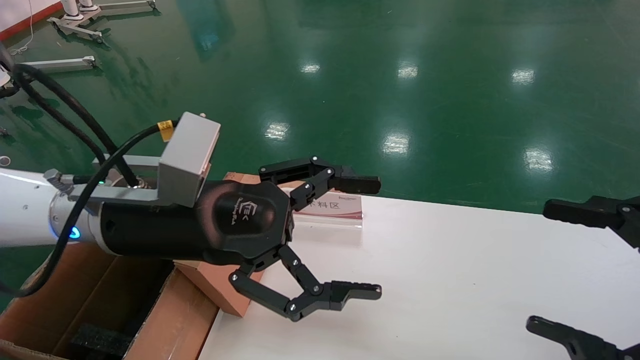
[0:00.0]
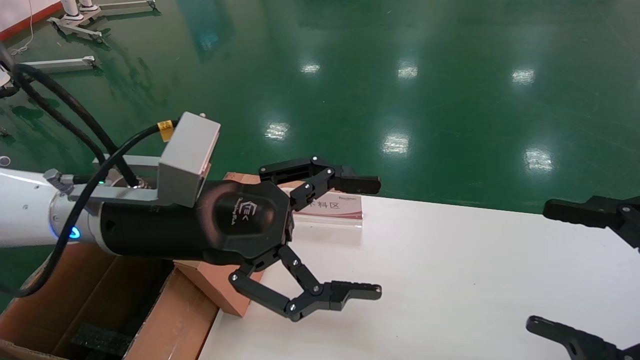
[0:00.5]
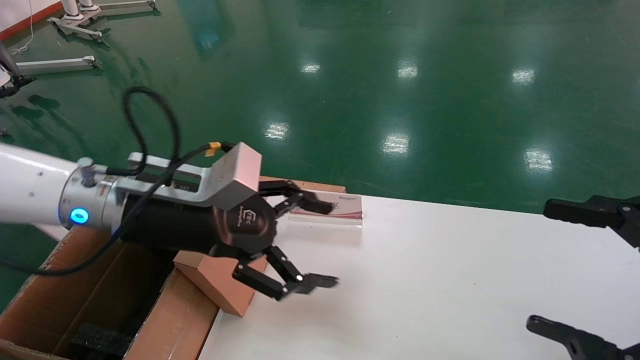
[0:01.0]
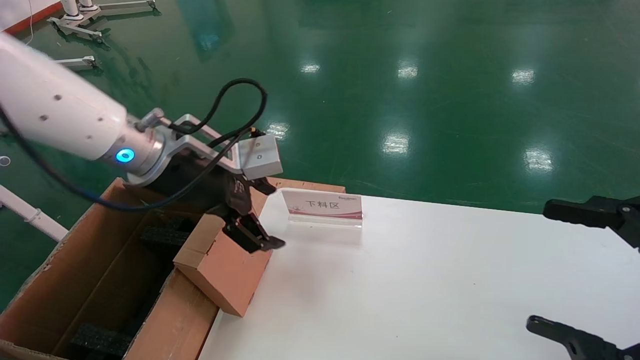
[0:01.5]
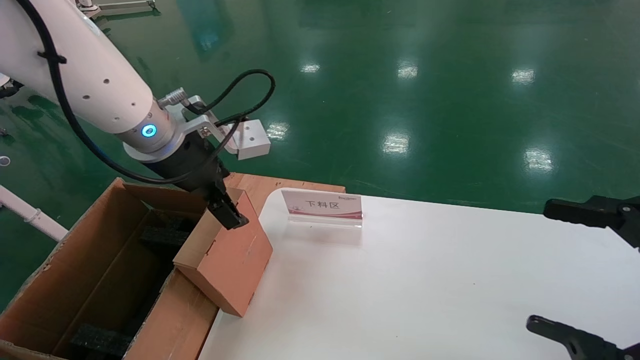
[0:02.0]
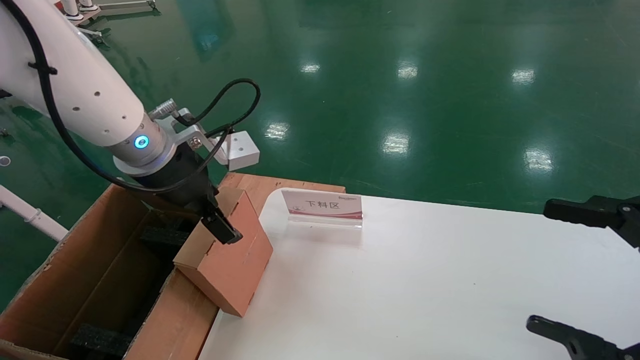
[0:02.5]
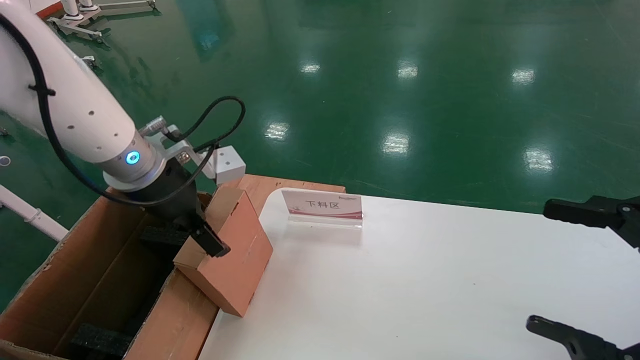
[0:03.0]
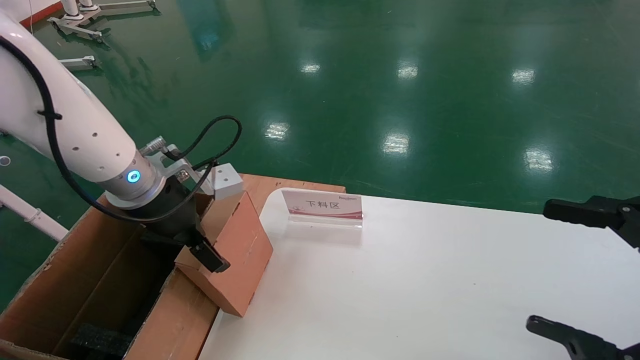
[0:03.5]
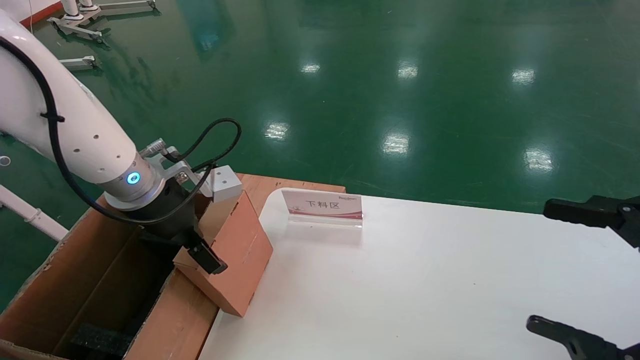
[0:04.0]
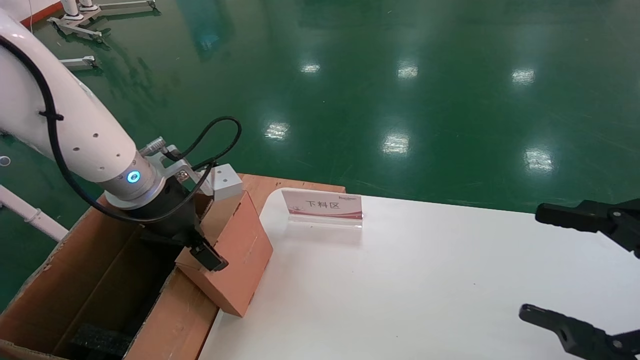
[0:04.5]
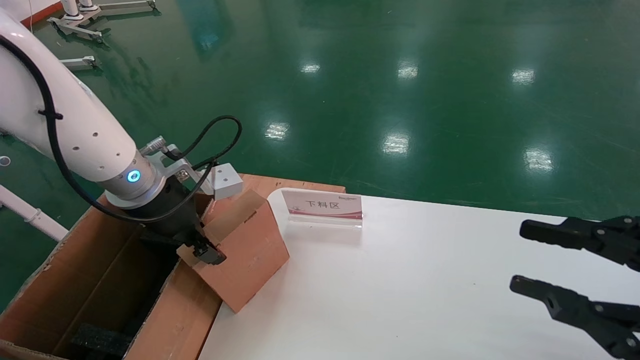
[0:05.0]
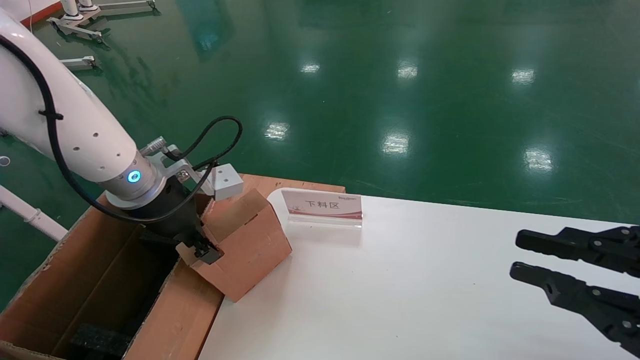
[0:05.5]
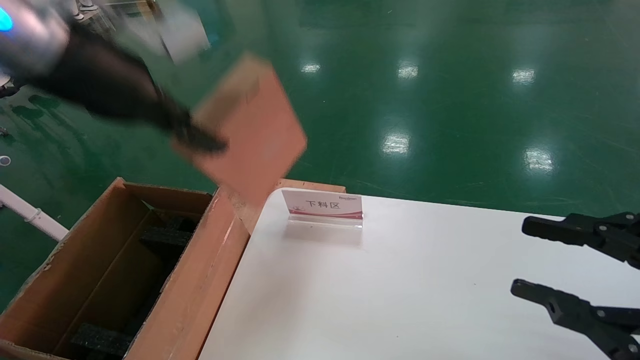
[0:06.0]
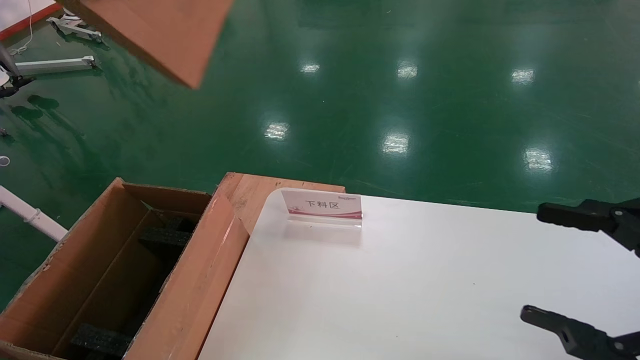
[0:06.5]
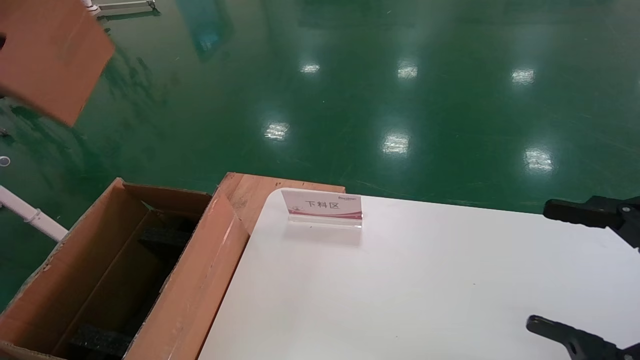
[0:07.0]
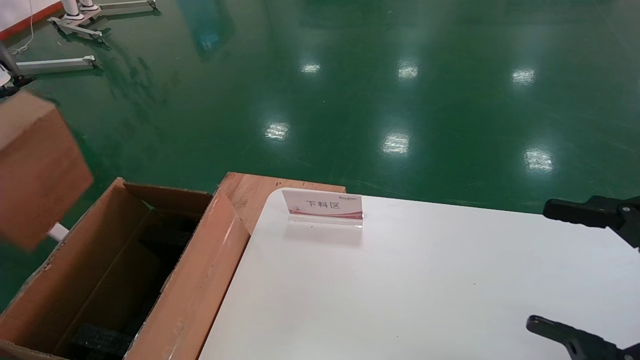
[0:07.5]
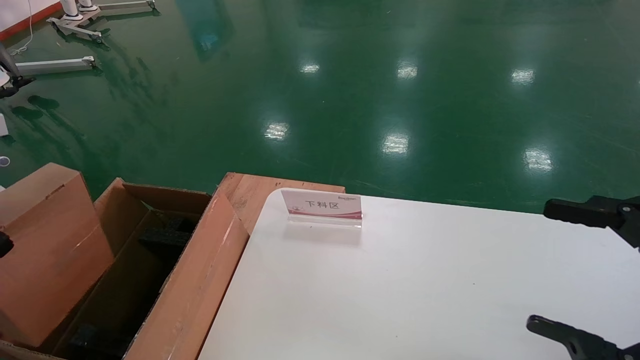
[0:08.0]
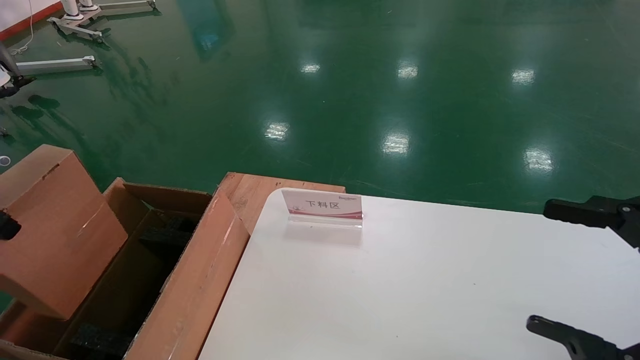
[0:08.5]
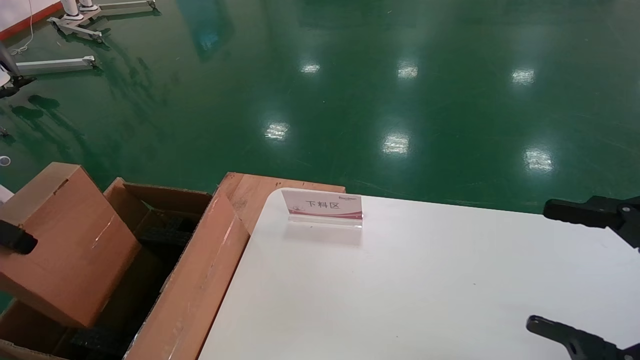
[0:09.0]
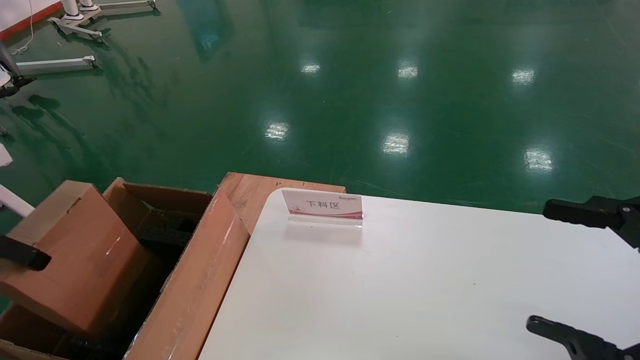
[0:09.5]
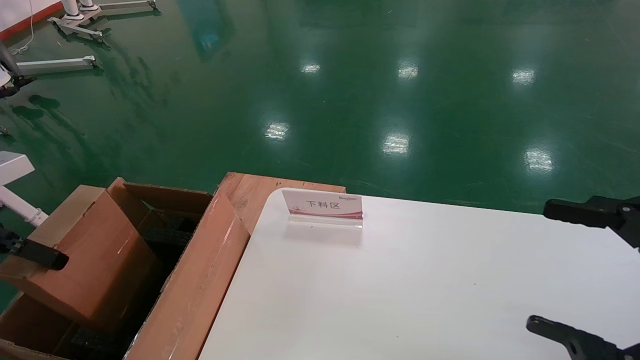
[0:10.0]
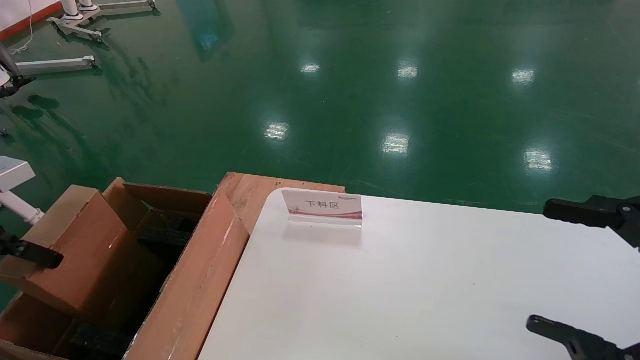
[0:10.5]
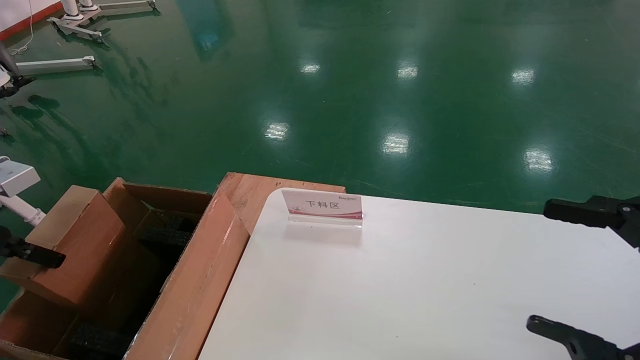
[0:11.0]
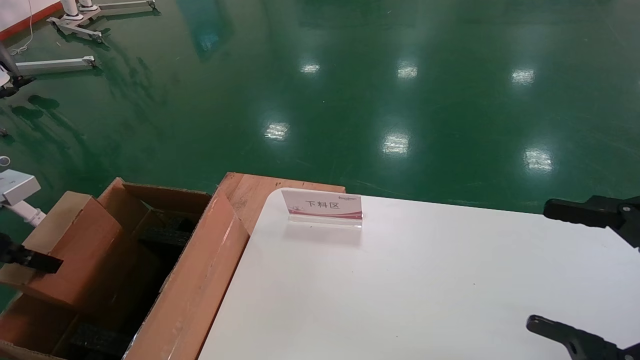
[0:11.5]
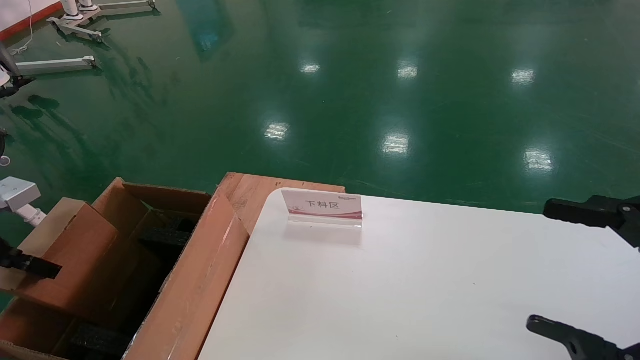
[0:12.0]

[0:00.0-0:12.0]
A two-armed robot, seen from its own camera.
Task of the whole recording: pick up the small cardboard box and load it into the large cardboard box.
Step, 0:01.0 to 0:05.0: Pick up the mouse and power cord box.
0:00.0 to 0:02.0: The left gripper travels forward by roughly 10 cm.
0:02.0 to 0:04.0: The left gripper travels downward by roughly 5 cm.
0:04.0 to 0:06.0: The right gripper closes up. Meanwhile the left gripper heads upward and backward, covering some 20 cm, and closes up.
0:06.0 to 0:08.0: The left gripper goes approximately 20 cm to the left and backward. The right gripper opens up.
0:08.0 to 0:10.0: The left gripper heads downward and to the left, covering some 10 cm.
0:10.0 to 0:12.0: The left gripper travels downward by roughly 5 cm.

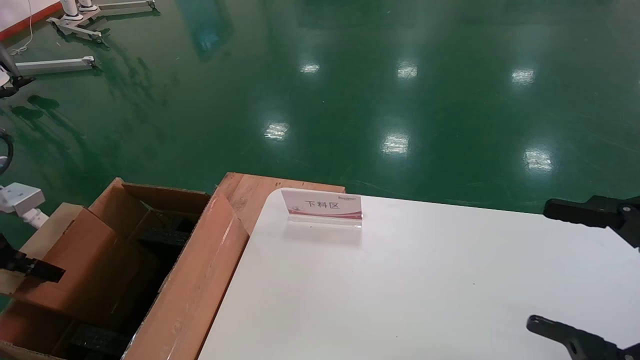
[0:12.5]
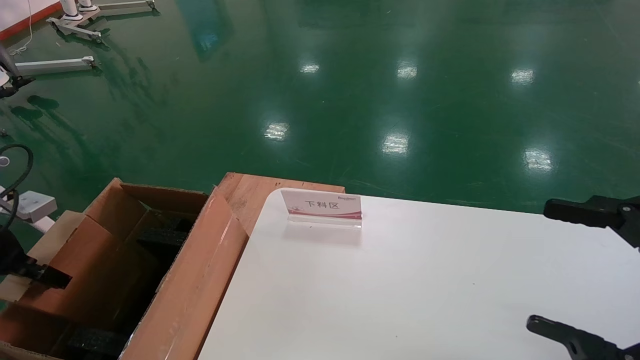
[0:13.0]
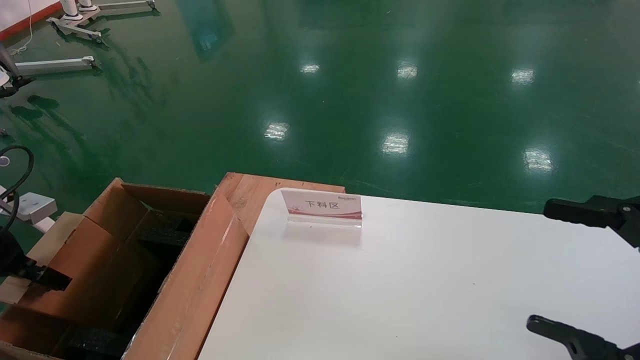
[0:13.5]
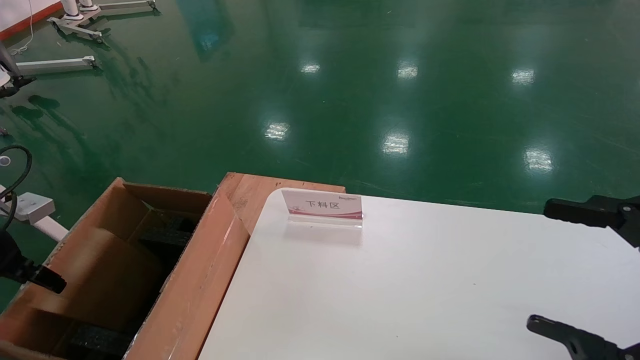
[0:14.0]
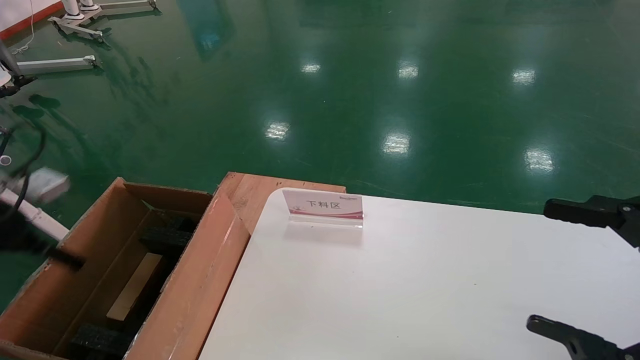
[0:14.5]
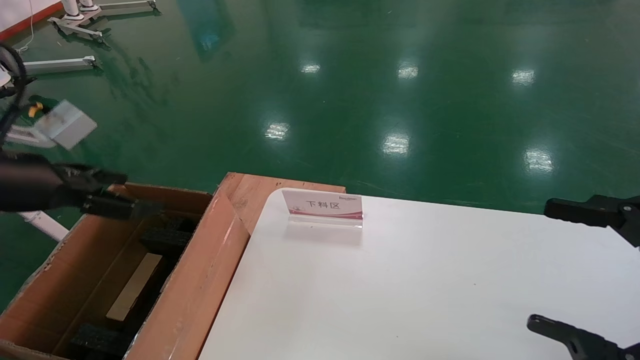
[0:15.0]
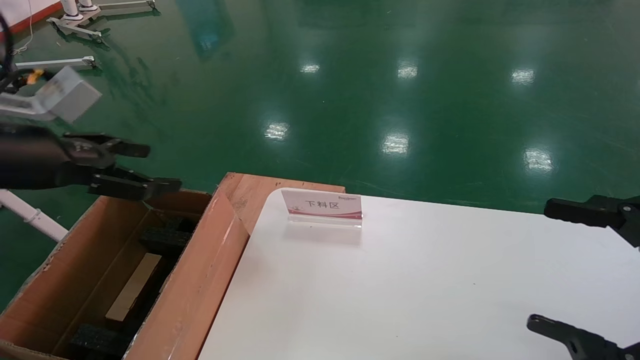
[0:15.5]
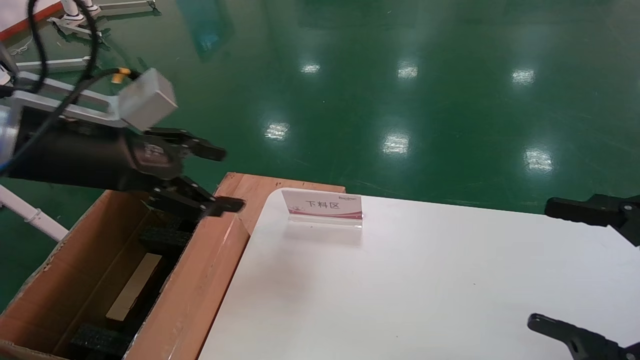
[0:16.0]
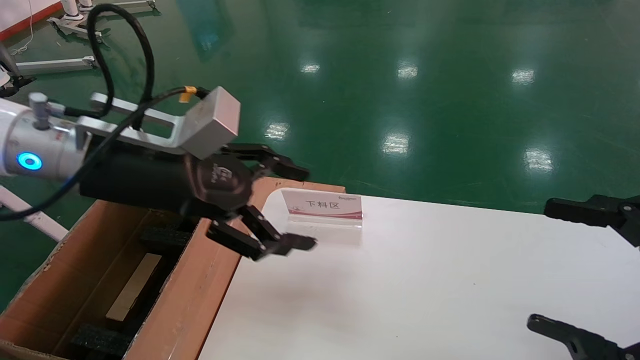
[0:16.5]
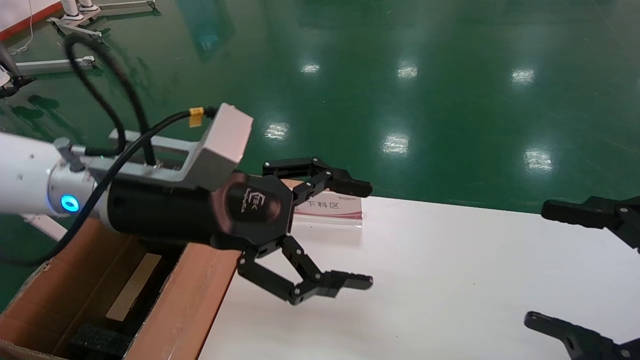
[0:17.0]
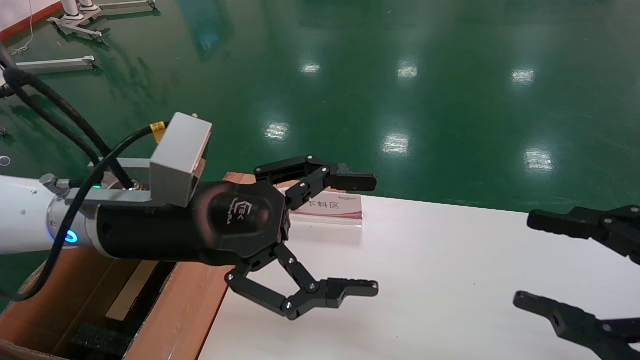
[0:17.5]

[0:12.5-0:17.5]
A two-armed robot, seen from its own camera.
Task of the whole recording: pick up the small cardboard box and load it into the large cardboard box.
0:12.5 to 0:15.0: The left gripper moves to the right and upward, roughly 15 cm, and opens its fingers.
0:15.0 to 0:17.5: The left gripper is displaced to the right by some 20 cm.

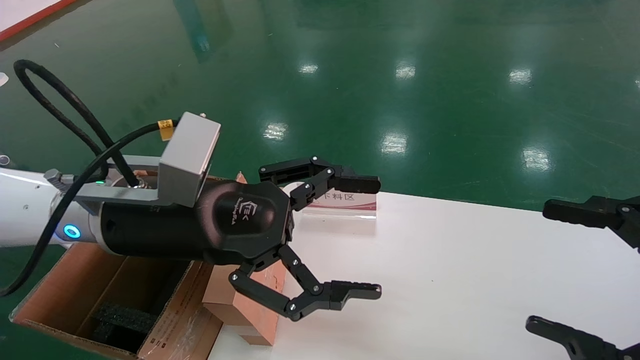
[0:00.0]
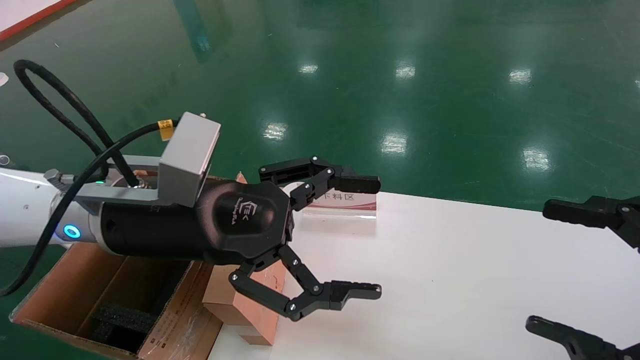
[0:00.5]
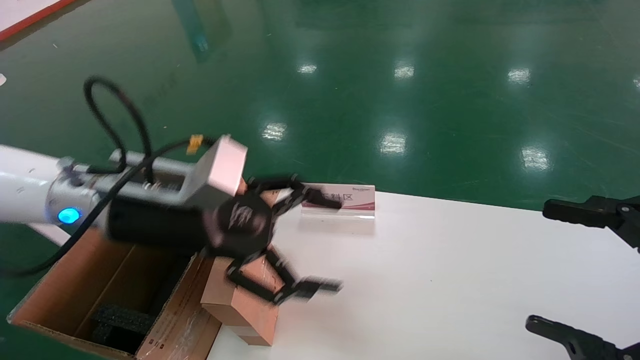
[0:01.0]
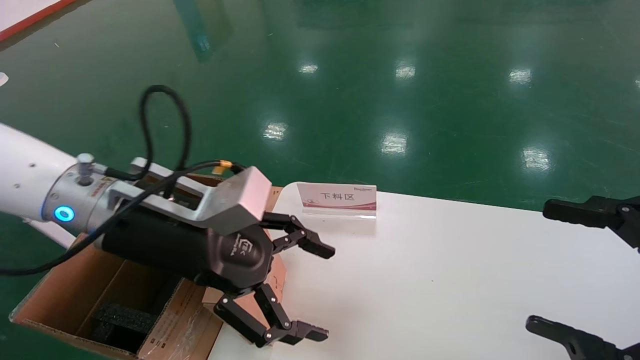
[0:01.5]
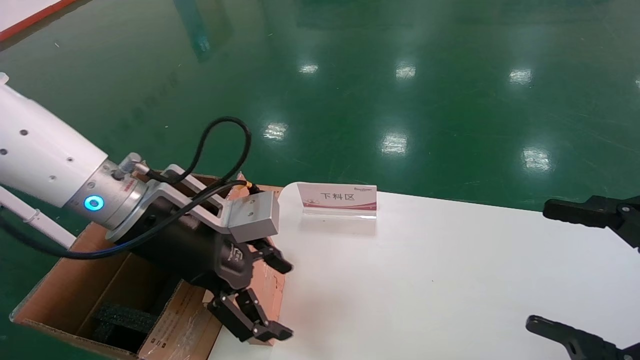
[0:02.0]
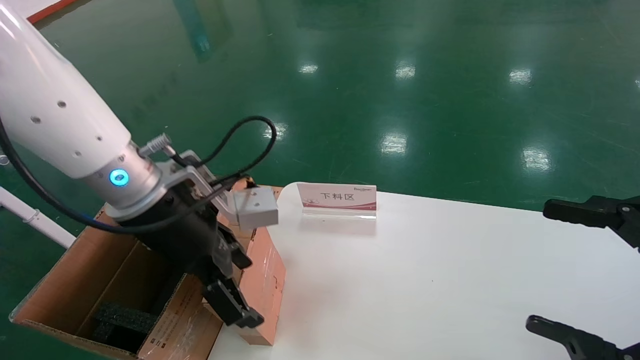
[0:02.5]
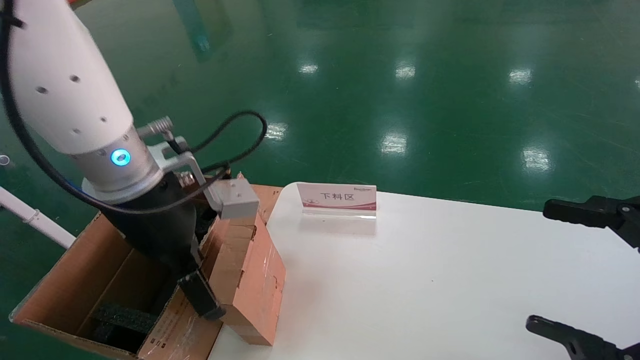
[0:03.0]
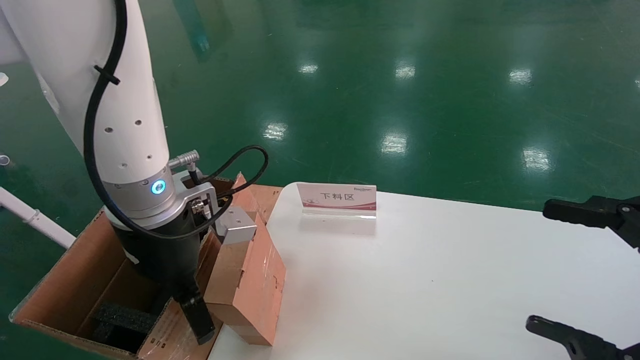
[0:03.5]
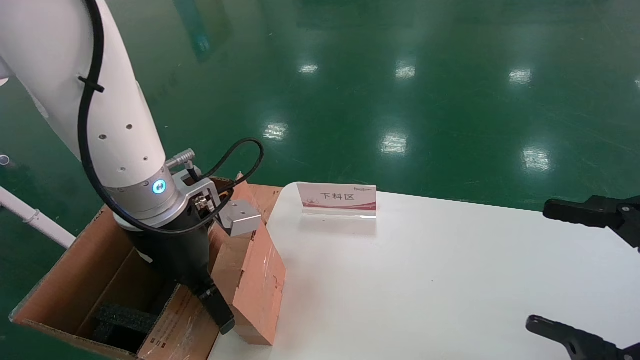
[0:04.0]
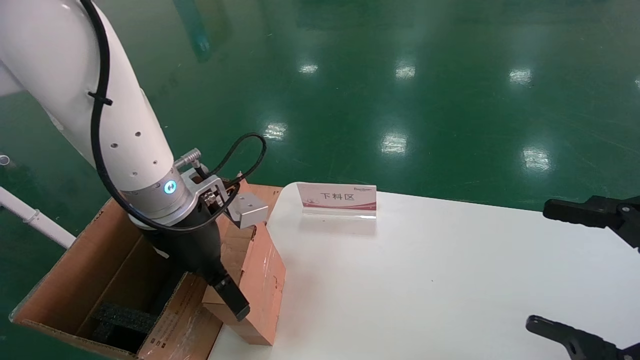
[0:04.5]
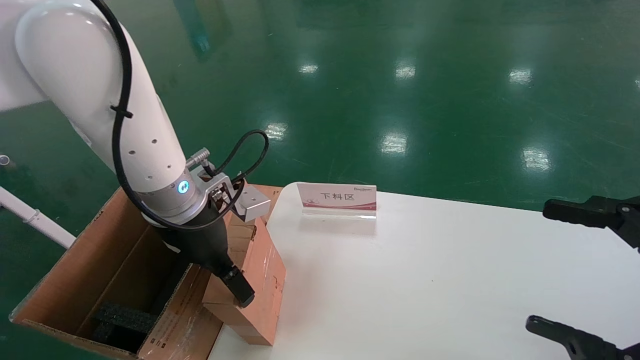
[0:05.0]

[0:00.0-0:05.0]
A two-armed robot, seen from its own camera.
Task of the whole recording: pick up the small cardboard box and load it into the large cardboard box.
0:02.5 to 0:05.0: The left gripper shifts by about 5 cm.
